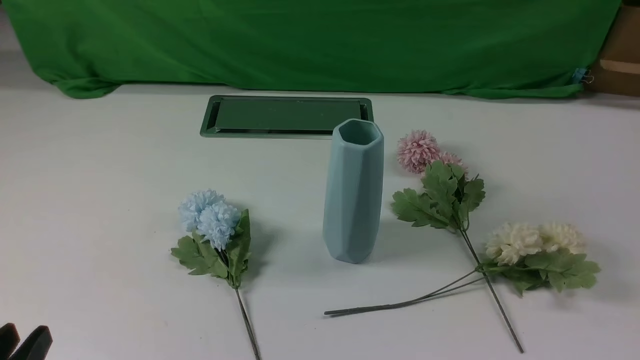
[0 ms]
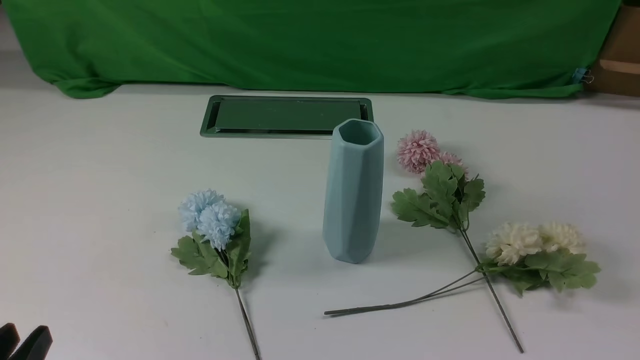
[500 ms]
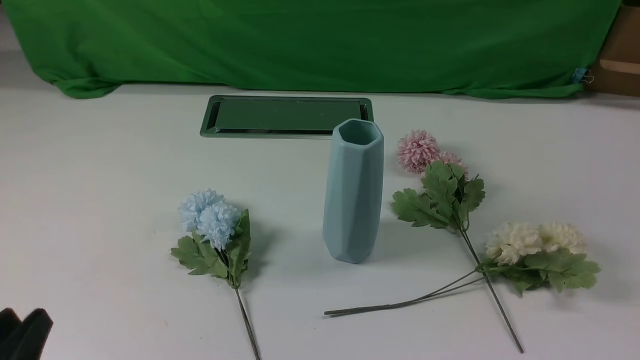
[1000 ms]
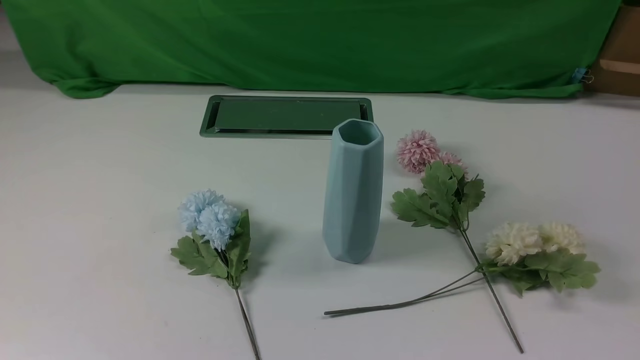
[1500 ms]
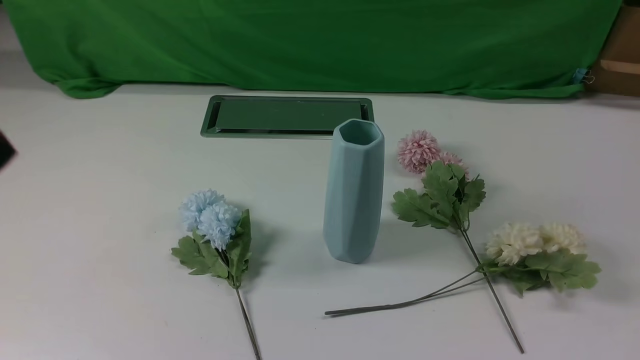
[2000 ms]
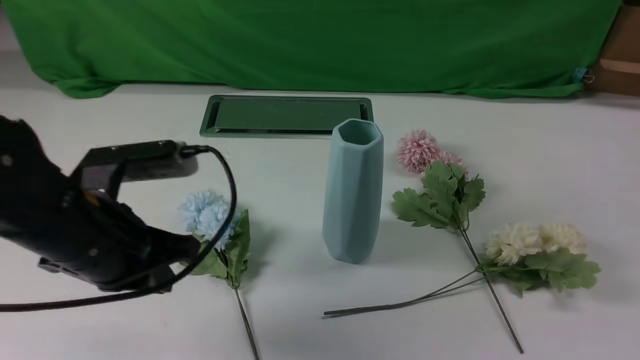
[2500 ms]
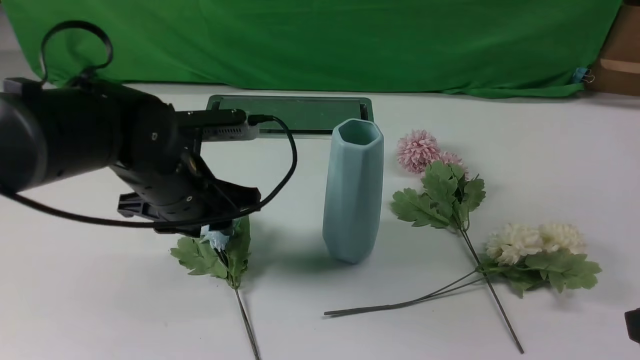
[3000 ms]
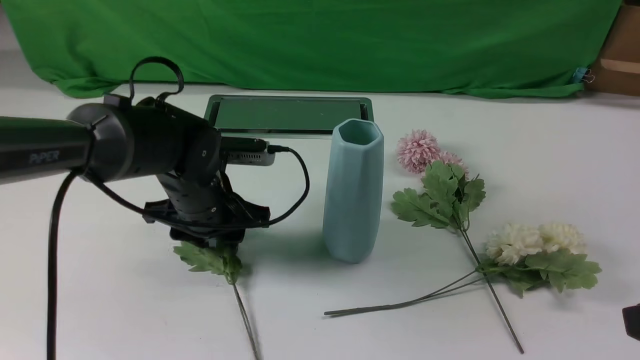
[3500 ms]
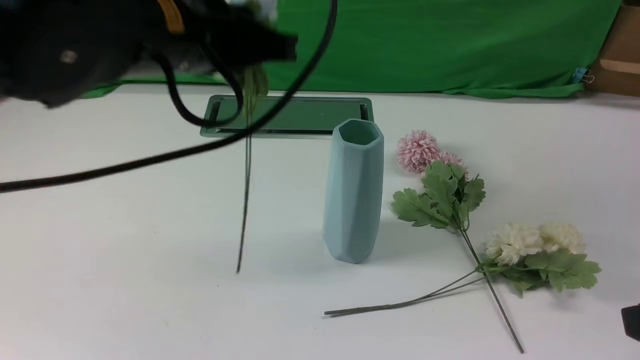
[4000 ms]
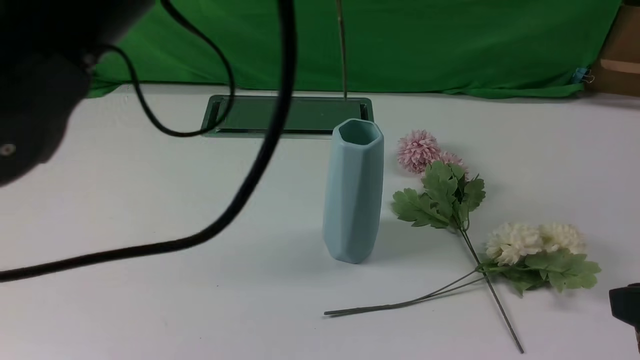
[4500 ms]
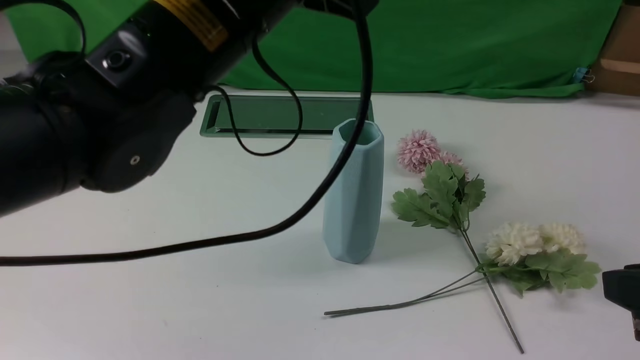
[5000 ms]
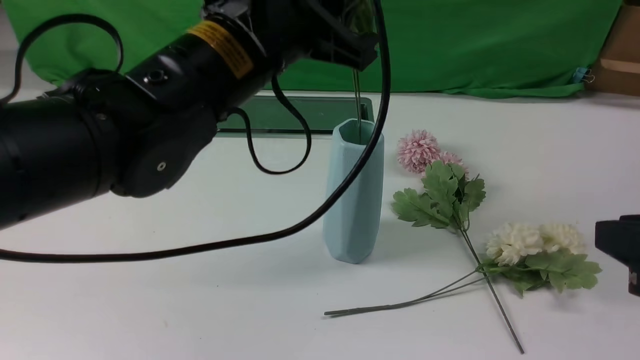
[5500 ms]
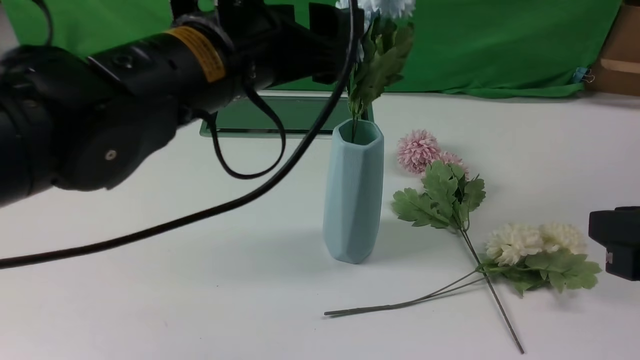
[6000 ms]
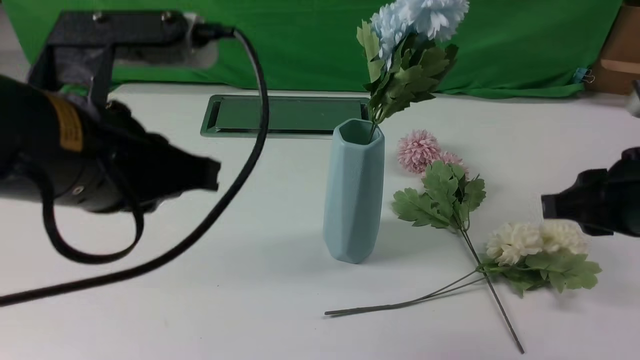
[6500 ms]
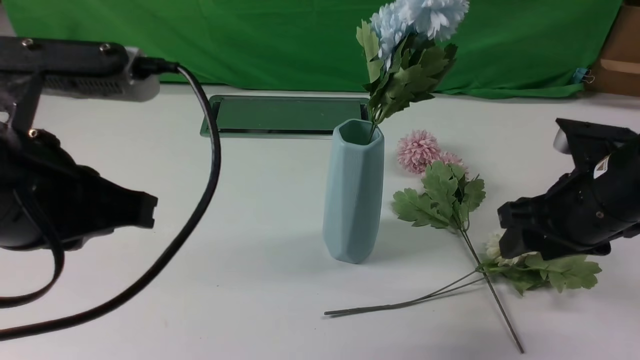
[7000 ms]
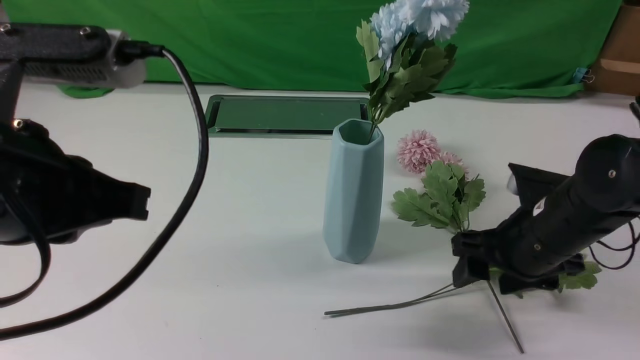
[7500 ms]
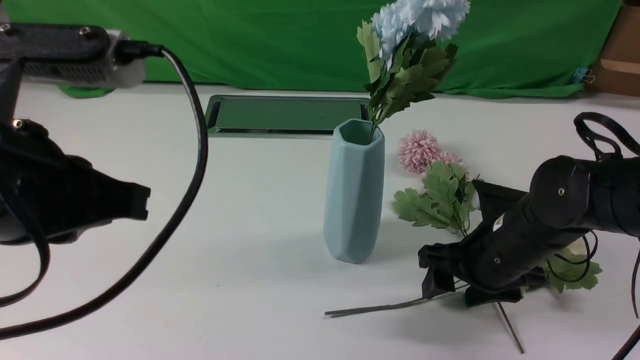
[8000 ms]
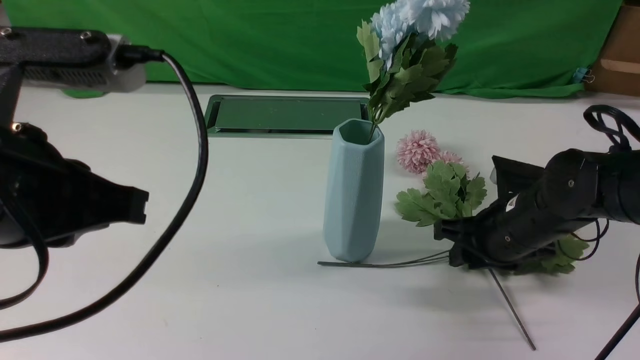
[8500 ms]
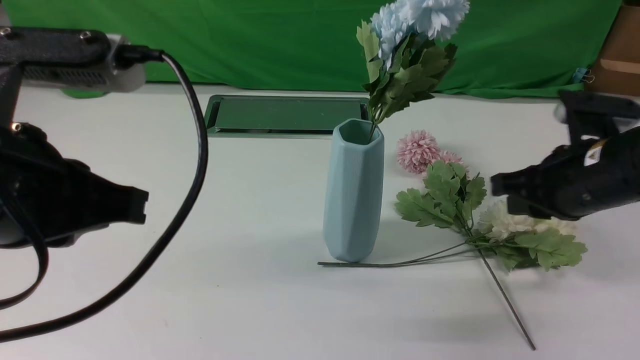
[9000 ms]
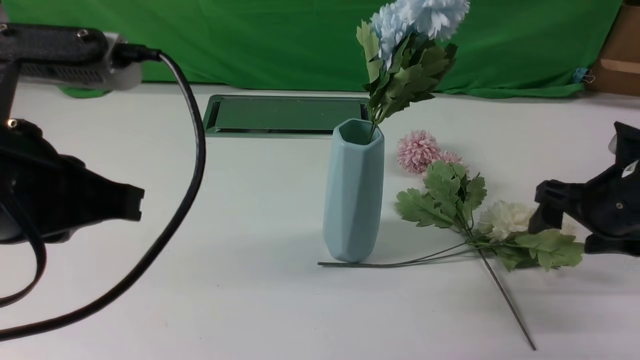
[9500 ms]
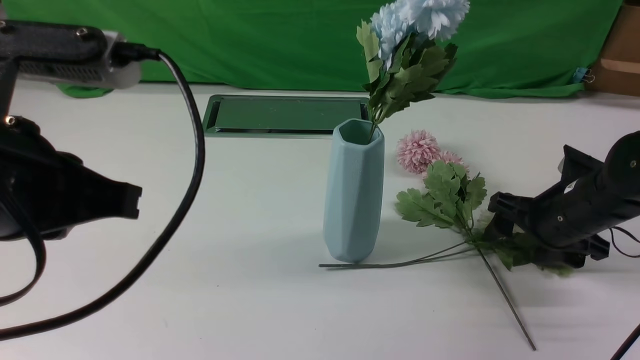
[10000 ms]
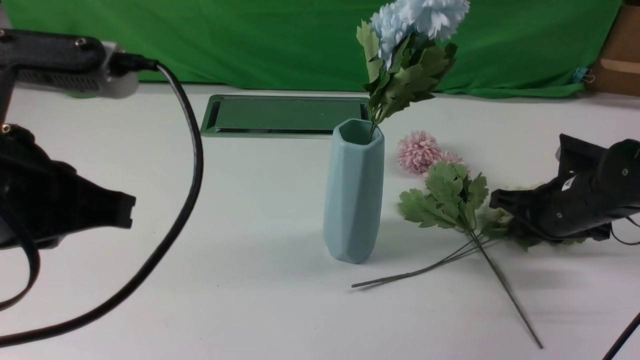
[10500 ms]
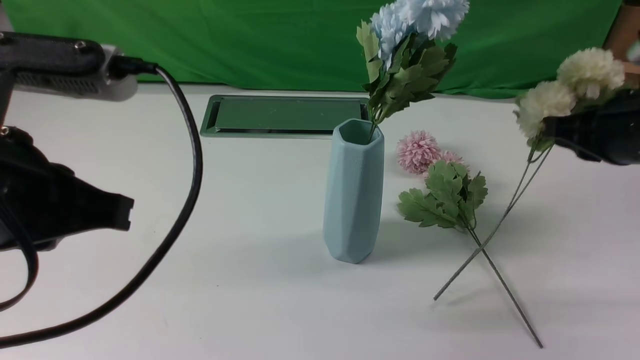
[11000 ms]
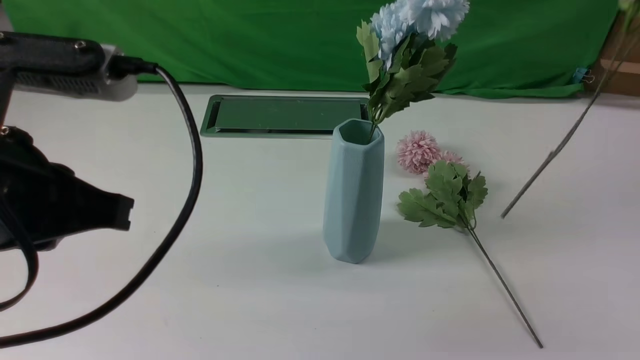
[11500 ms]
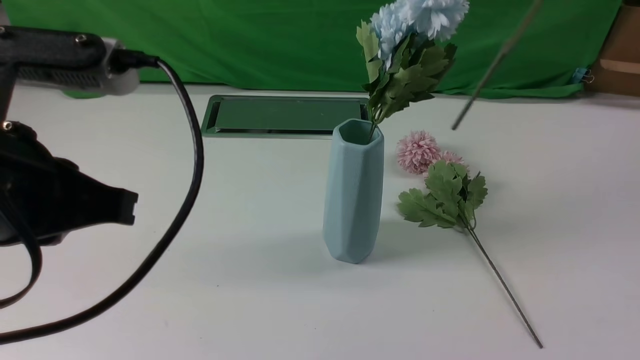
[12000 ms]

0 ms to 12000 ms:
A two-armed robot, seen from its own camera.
Task of the whole recording: insert the flowers into the vase on the white table.
Step, 0 ms to 3500 ms: use the left arm to grab a bunch of fresh flowers.
Step, 4000 ms to 6000 ms: use the left arm to insert the flowers into the vase.
Step, 6500 ms to 10500 ms: use the right arm to grab a bunch of fresh flowers.
0 ms to 2000 ms: The left gripper moves upward, some 15 cm, and closes up.
2000 ms to 4000 ms: The left gripper travels forward and to the right by some 20 cm, and opens, then closes once more. Meanwhile the right gripper goes approximately 10 cm upward, to the left and forward.
4000 ms to 6000 ms: The left gripper travels upward and back again, about 5 cm each way, and opens.
6000 ms to 8000 ms: The left gripper shifts approximately 15 cm backward and to the left, and closes up. Meanwhile the right gripper moves downward and forward, roughly 25 cm, and opens its fingers.
8000 ms to 10000 ms: The right gripper heads to the right, covering approximately 10 cm, and closes, then opens again.
10000 ms to 12000 ms: The right gripper is displaced upward and backward by some 35 cm, and closes up.

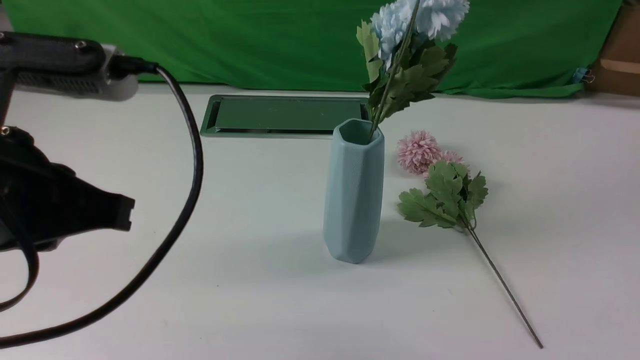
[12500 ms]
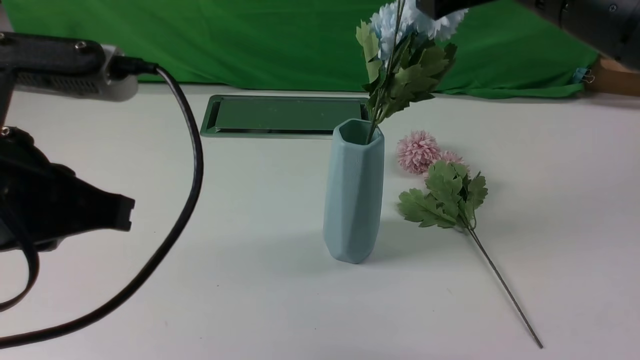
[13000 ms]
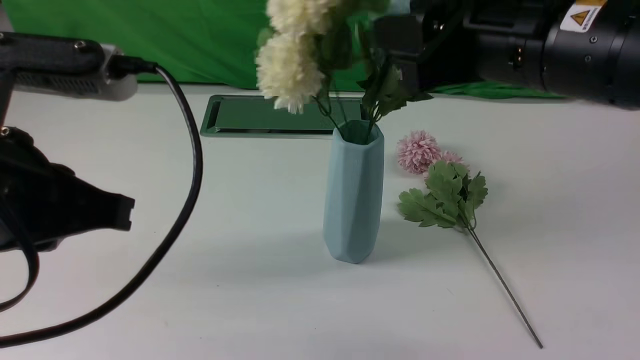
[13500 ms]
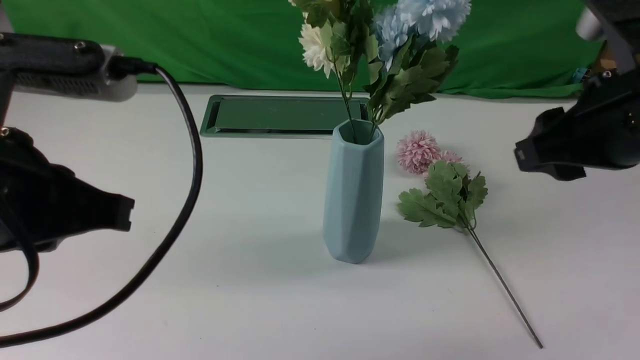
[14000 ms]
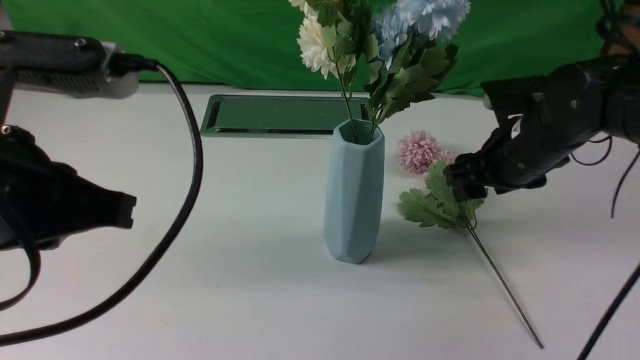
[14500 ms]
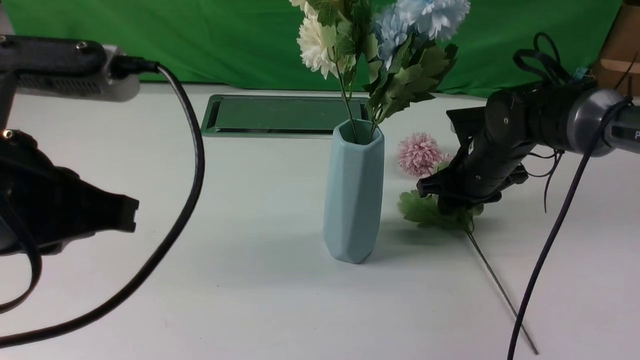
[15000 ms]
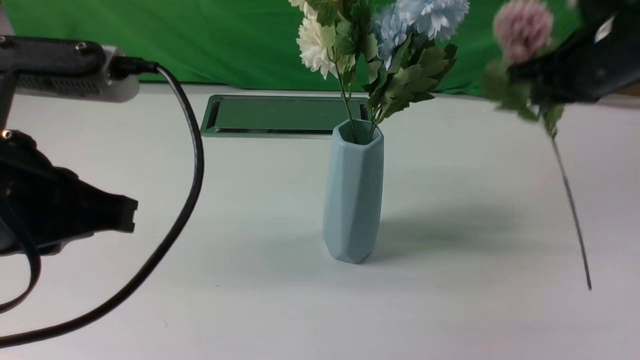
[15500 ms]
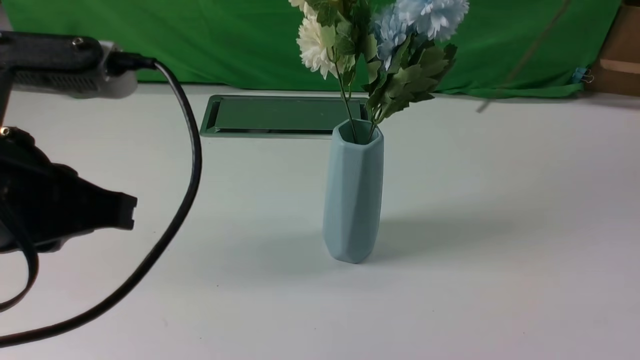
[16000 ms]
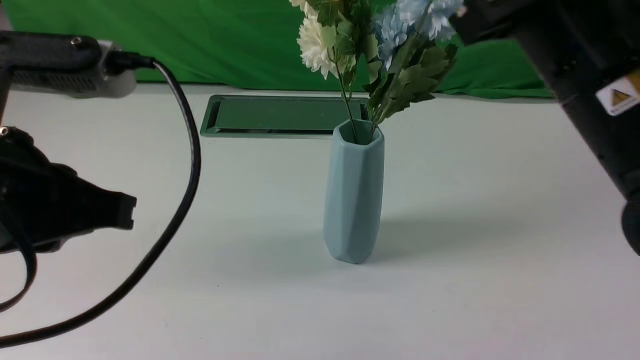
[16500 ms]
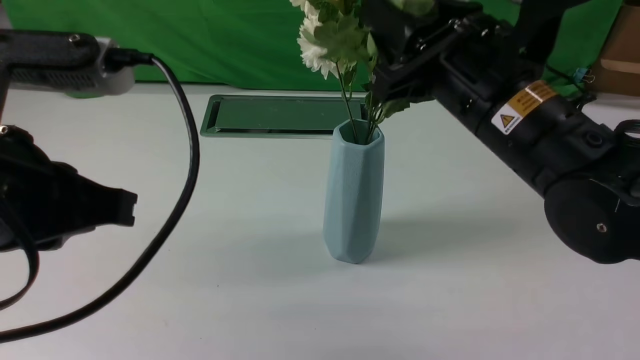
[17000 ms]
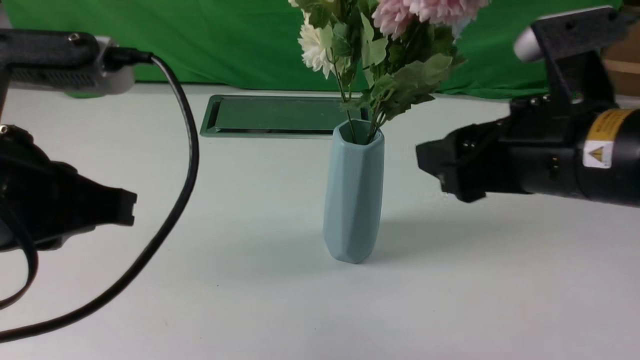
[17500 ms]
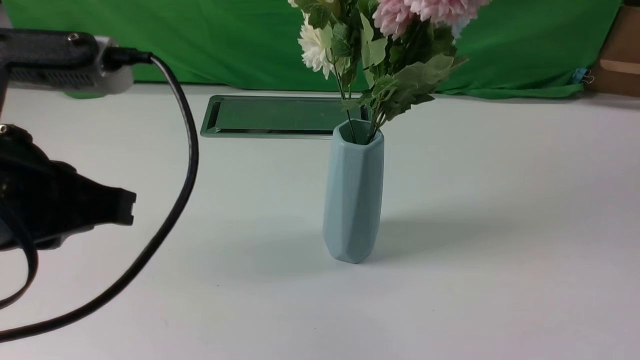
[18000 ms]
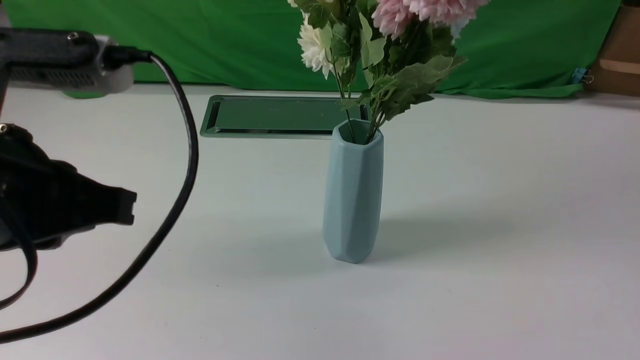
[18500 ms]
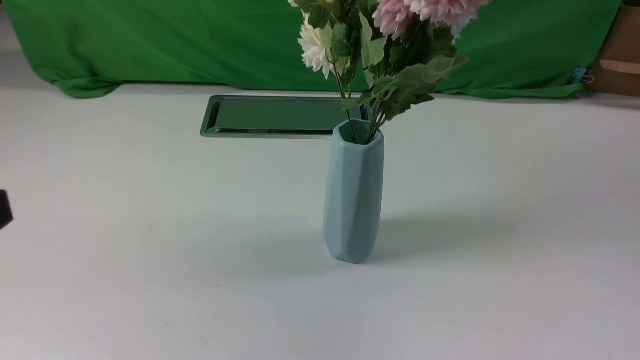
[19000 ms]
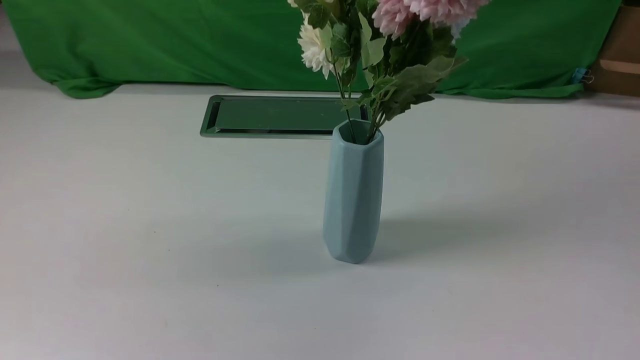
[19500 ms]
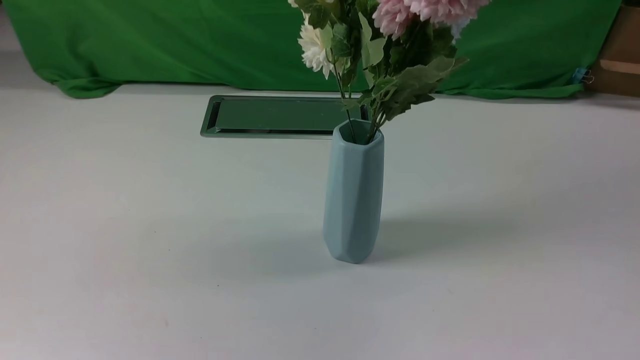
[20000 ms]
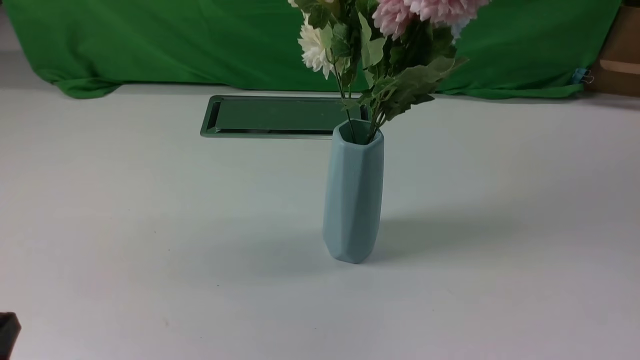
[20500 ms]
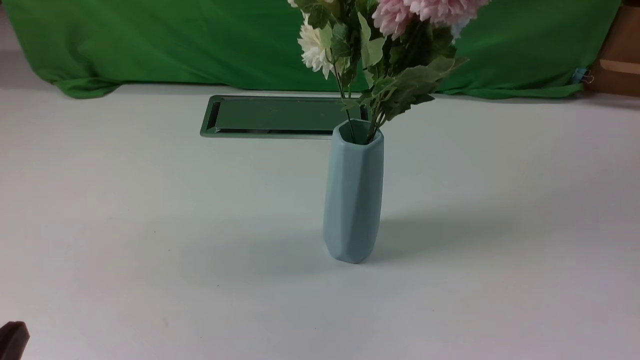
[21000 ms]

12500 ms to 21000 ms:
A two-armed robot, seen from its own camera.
Task of the whole recording: insert the flowers into the vase on the white table.
Step, 14000 ms to 15000 ms: use the right arm to grab a bunch of fresh flowers.
Step, 15500 ms to 17500 ms: use the right arm to insert the flowers into the vase.
12500 ms to 14500 ms: The right gripper heads downward and forward, covering roughly 25 cm, and opens its fingers.
14500 ms to 16500 ms: The right gripper moves up and down over roughly 30 cm, changing direction 2 times, and closes up.
16500 ms to 19000 ms: The right gripper travels backward and to the right by roughly 30 cm, and opens, then closes once more. Meanwhile the left gripper is displaced backward and to the left by some 10 cm.
19000 ms to 21000 ms: The left gripper travels downward by approximately 20 cm.
